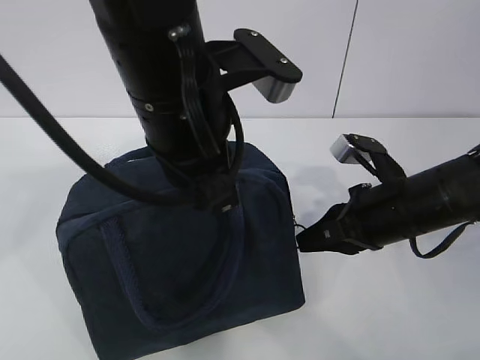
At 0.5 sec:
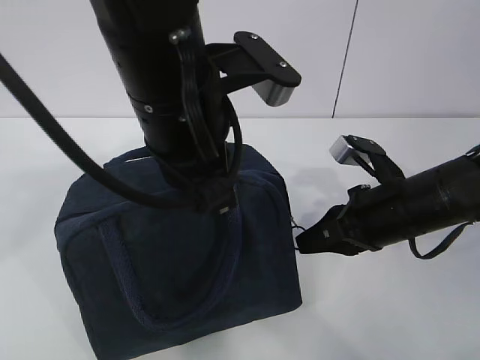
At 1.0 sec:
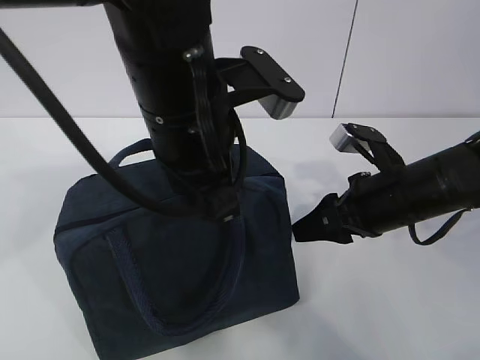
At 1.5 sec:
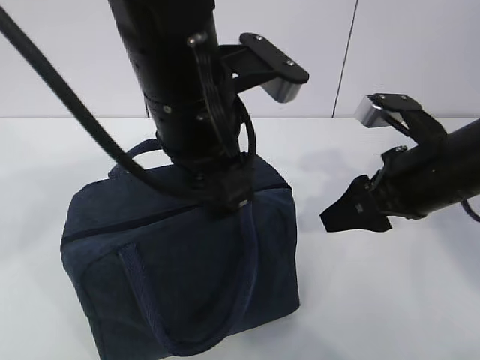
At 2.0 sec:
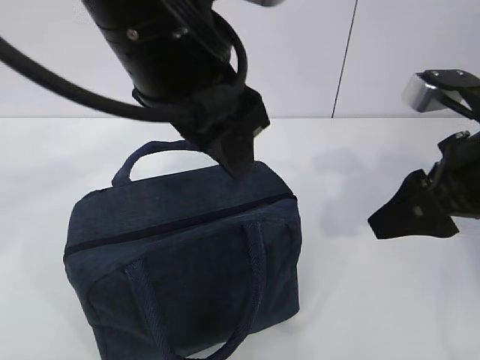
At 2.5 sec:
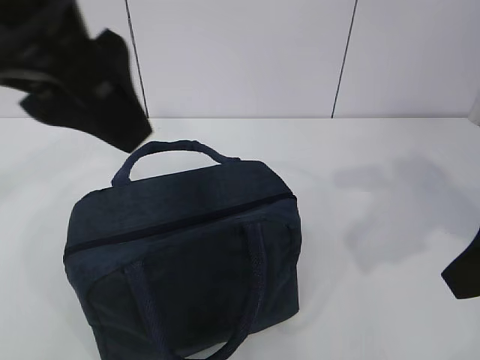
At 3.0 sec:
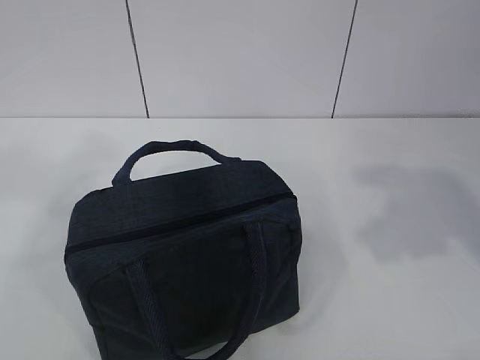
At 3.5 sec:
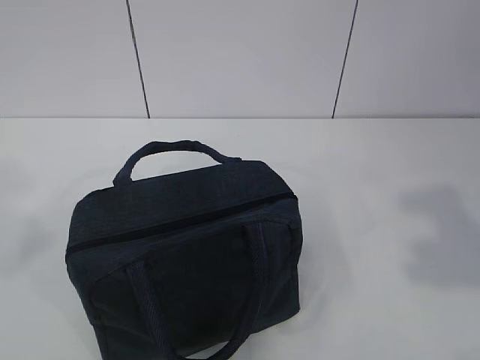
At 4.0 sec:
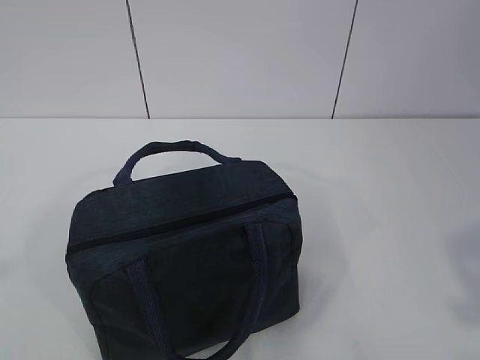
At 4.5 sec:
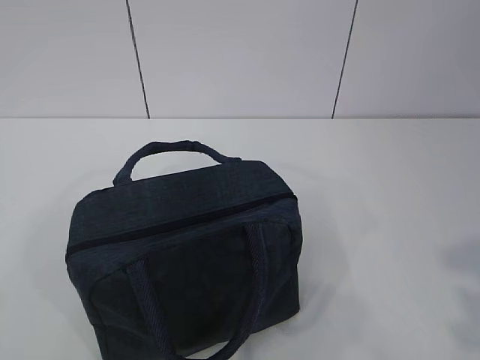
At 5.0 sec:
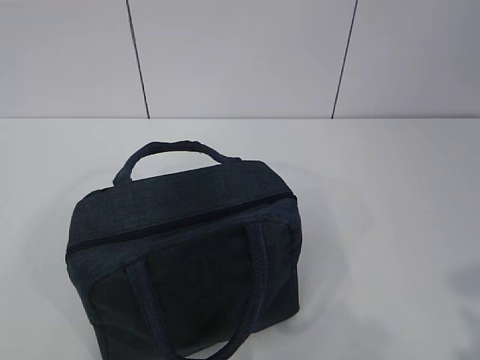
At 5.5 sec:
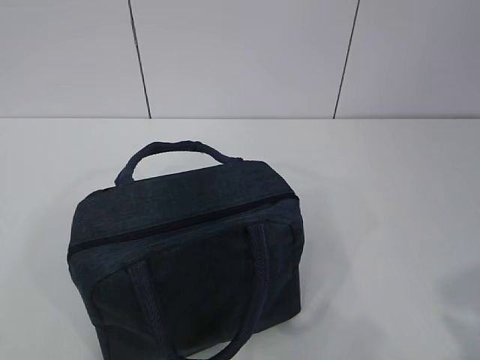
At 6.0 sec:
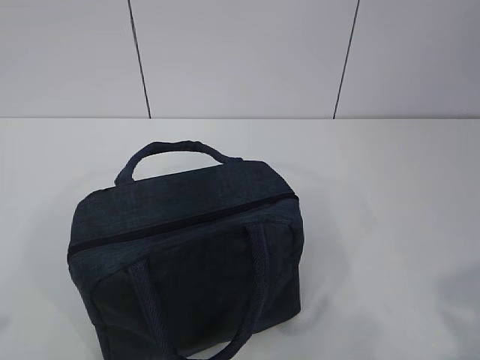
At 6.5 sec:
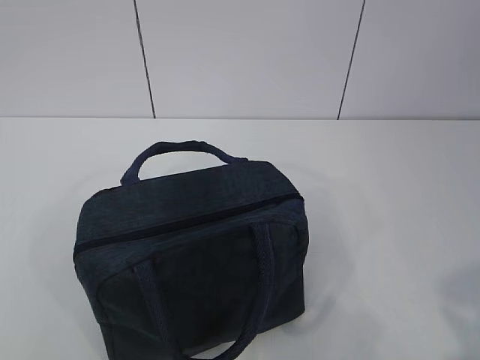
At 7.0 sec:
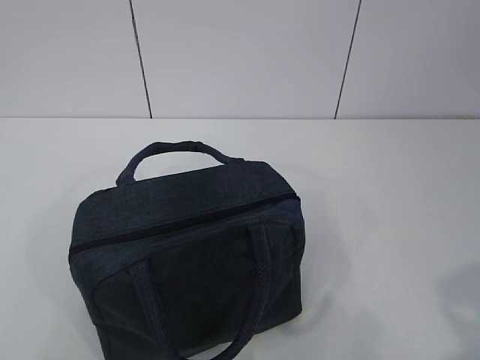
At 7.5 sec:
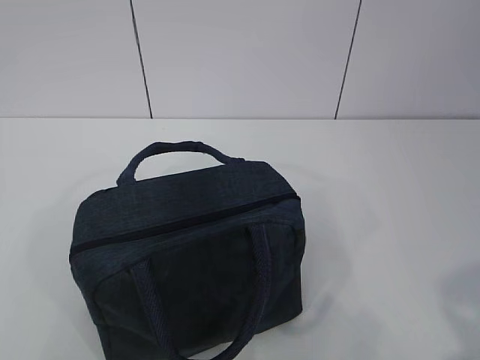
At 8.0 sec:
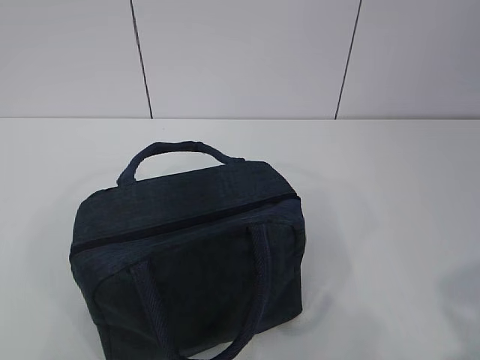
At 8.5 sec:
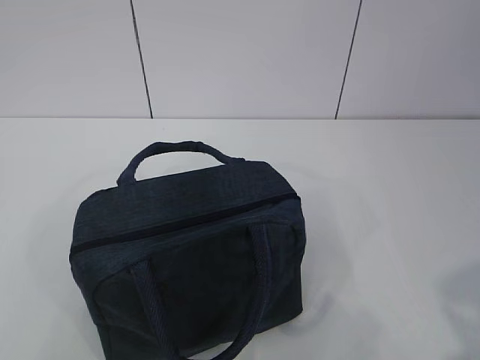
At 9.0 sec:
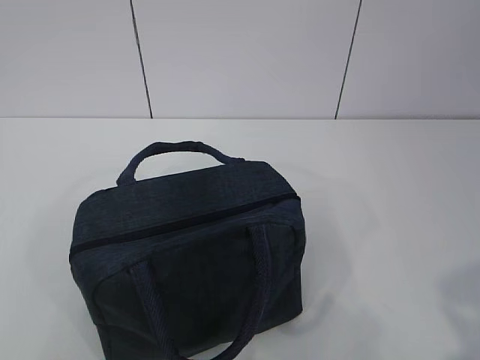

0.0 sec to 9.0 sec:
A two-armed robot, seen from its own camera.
0.0 sec to 2.0 sec: The left gripper goes roughly 5 cm upward, and opens its fingers; the right gripper travels upward and backward by about 15 cm, and opens.
2.0 sec to 4.5 sec: The left gripper goes some 35 cm to the left and backward, while the right gripper heads backward, covering about 25 cm.
4.5 sec to 7.0 sec: The left gripper goes some 5 cm downward; the right gripper shifts by roughly 5 cm.
7.0 sec to 9.0 sec: Both grippers stay put.

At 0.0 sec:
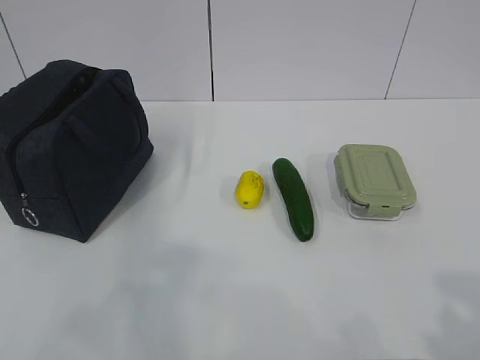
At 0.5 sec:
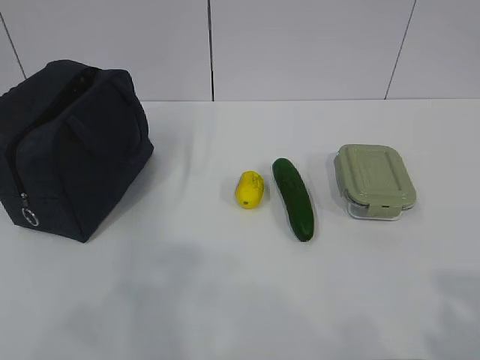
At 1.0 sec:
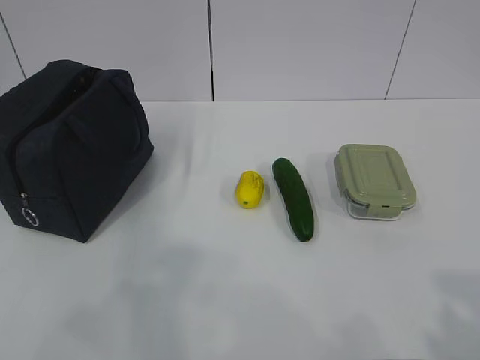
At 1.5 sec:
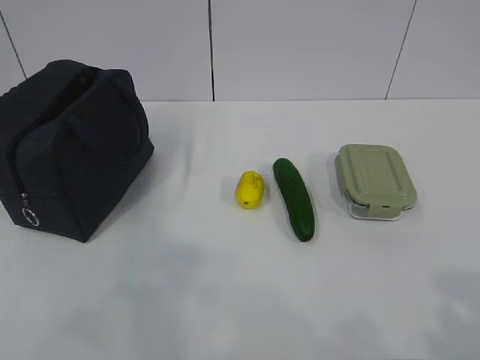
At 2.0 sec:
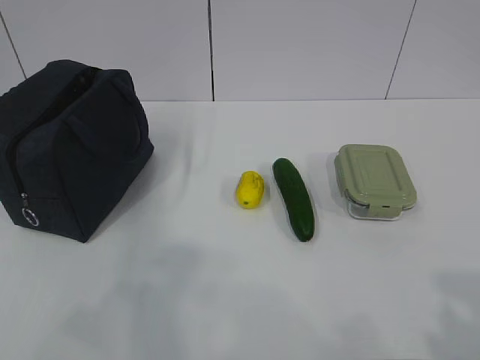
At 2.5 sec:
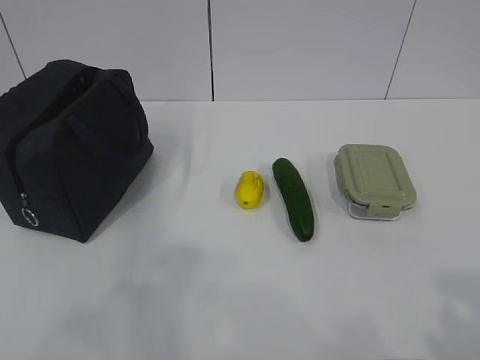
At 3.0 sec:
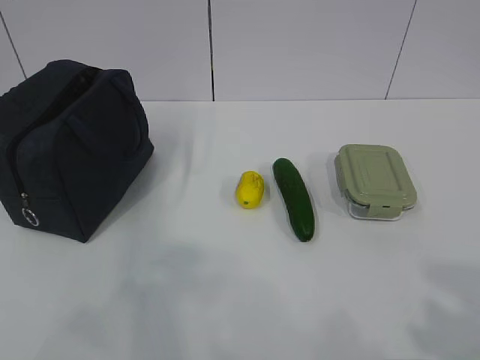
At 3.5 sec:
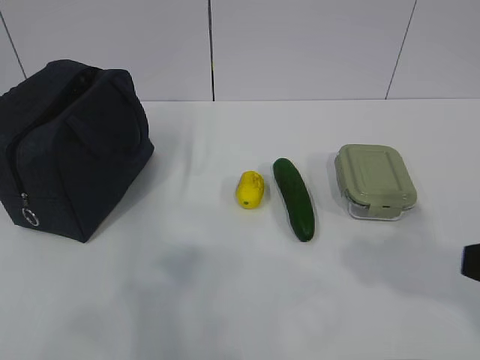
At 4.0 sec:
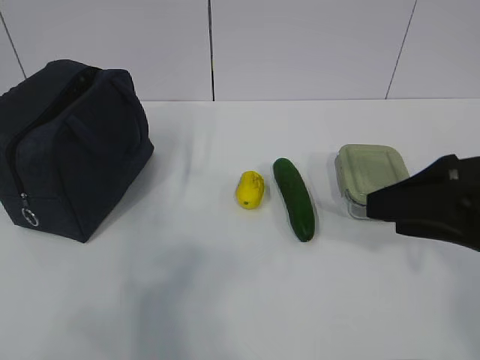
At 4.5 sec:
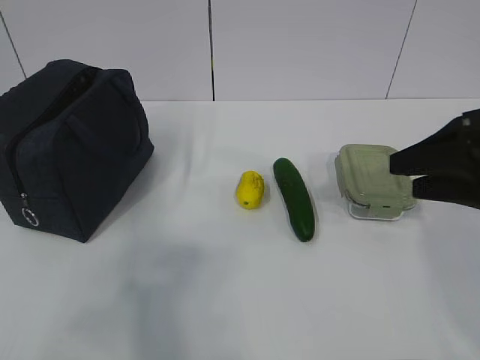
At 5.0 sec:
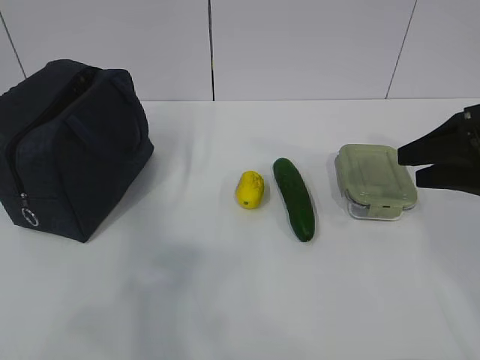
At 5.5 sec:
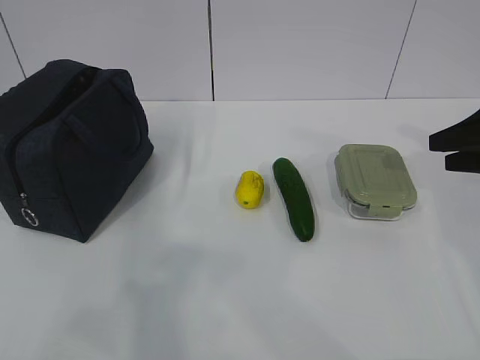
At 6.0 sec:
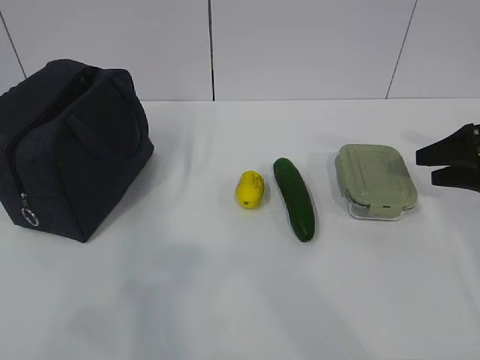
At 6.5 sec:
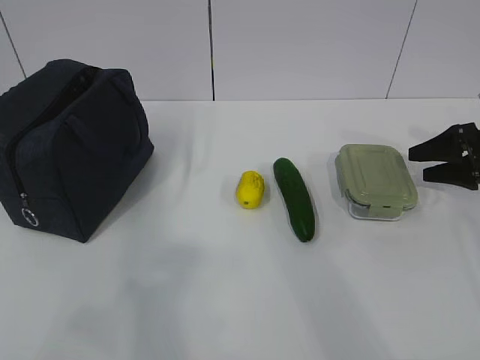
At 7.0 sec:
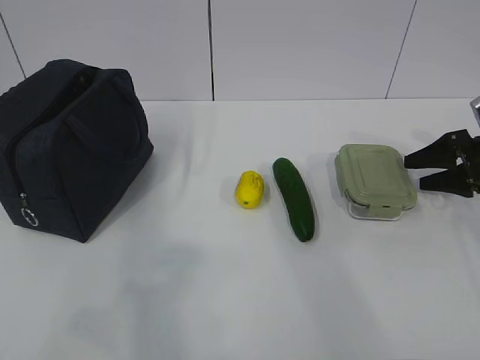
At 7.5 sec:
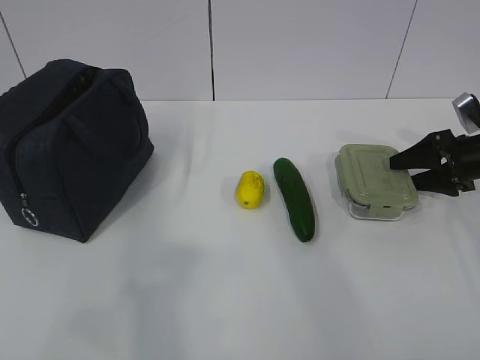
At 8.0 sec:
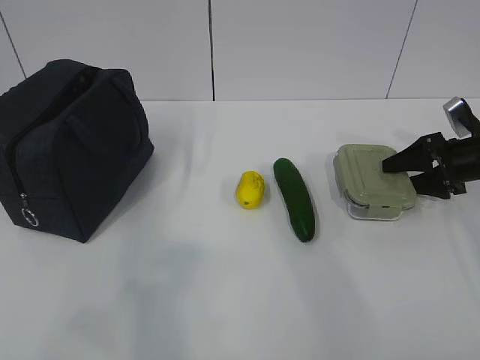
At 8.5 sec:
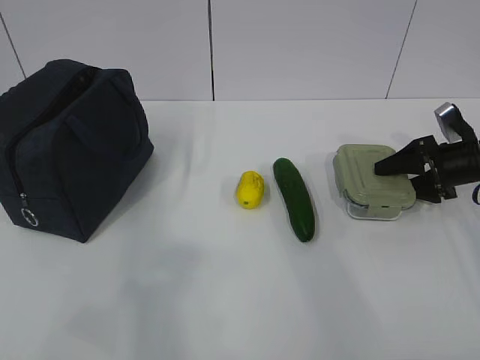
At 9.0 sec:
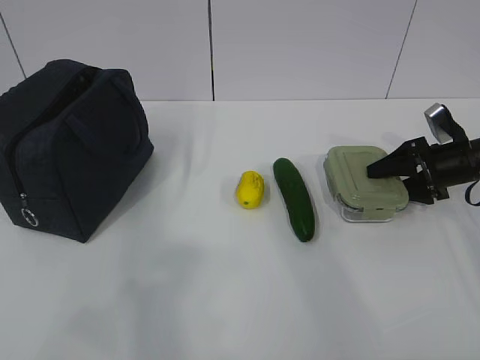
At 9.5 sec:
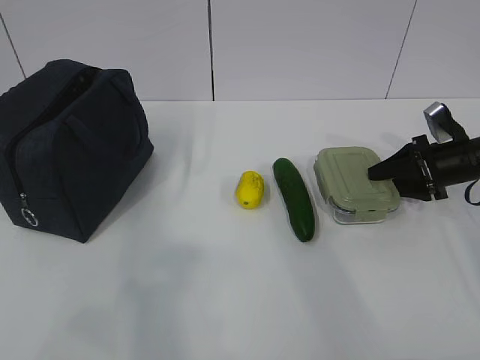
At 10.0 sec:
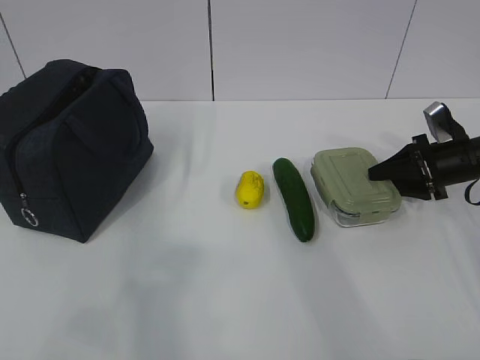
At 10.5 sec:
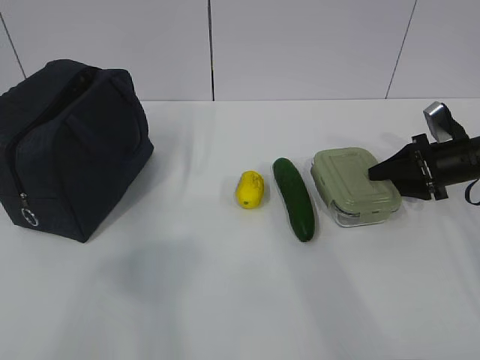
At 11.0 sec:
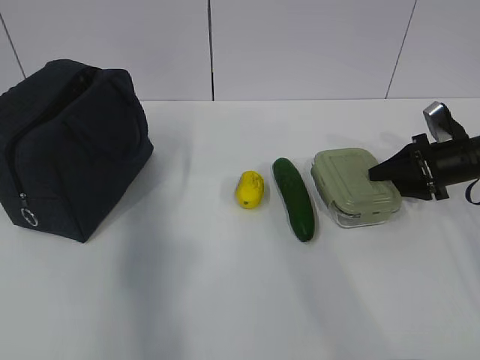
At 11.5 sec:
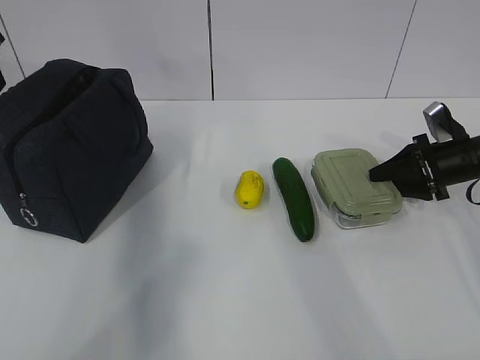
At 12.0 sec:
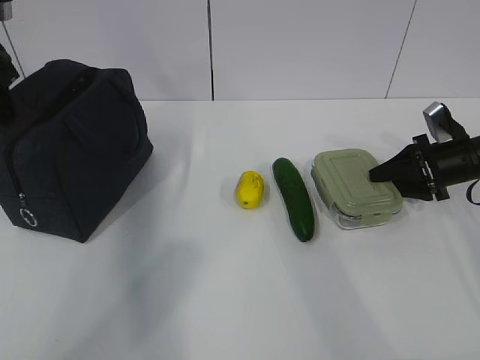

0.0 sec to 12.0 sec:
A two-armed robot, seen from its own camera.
Step, 0.0 sec to 11.5 sec: Grab the lunch box with your right hand.
2.0 sec to 4.0 sec: The right gripper goes some 20 cm forward.
4.0 sec to 6.0 sec: The right gripper is displaced forward, to the right and downward by roughly 25 cm.
6.0 sec to 8.0 sec: The right gripper moves forward and downward, approximately 10 cm.
8.0 sec to 10.0 sec: The right gripper closes its fingers.
10.0 sec to 12.0 sec: The left gripper travels forward by about 40 cm.

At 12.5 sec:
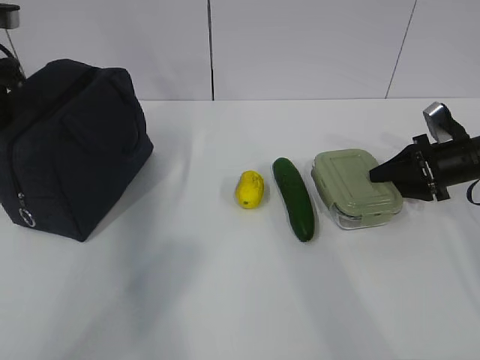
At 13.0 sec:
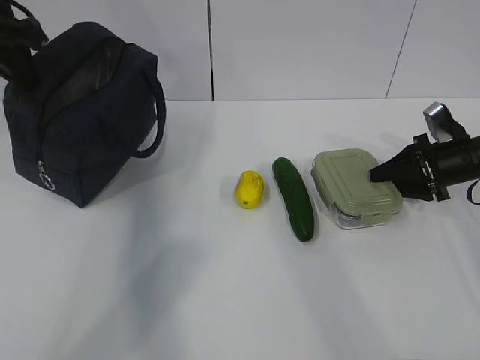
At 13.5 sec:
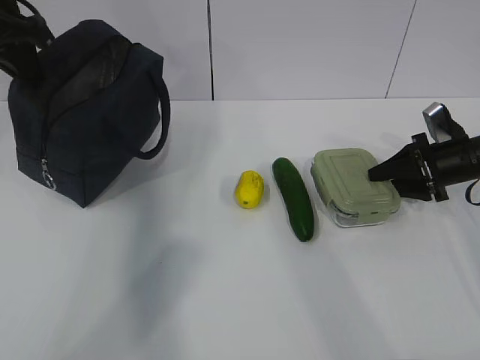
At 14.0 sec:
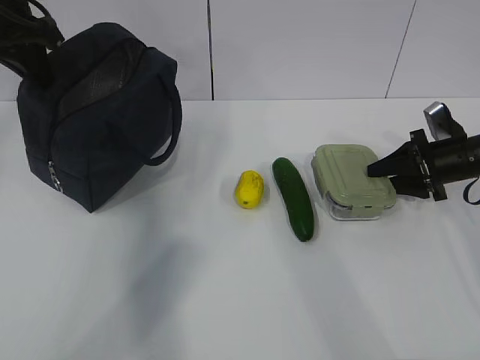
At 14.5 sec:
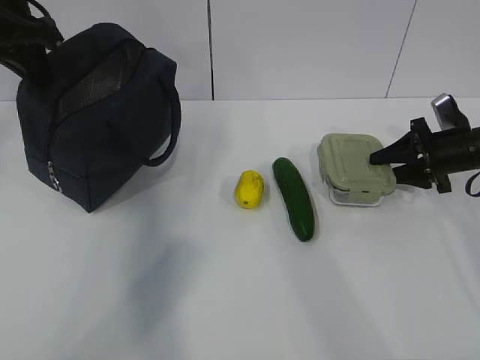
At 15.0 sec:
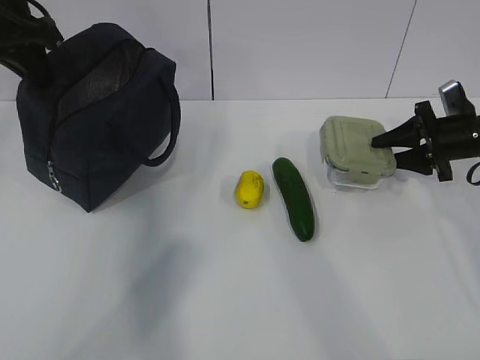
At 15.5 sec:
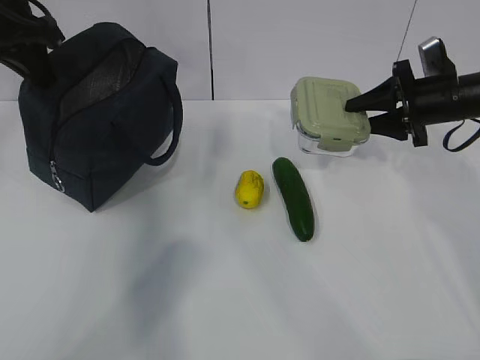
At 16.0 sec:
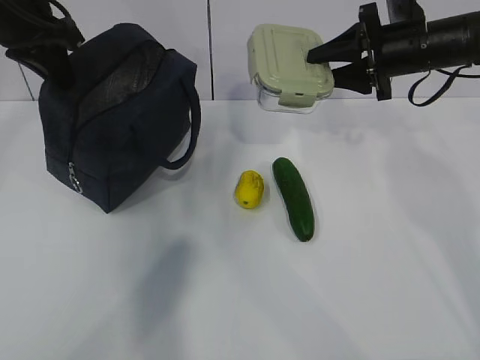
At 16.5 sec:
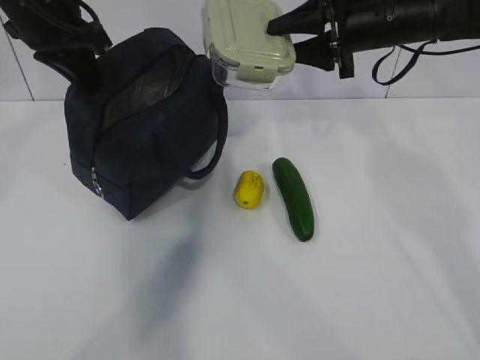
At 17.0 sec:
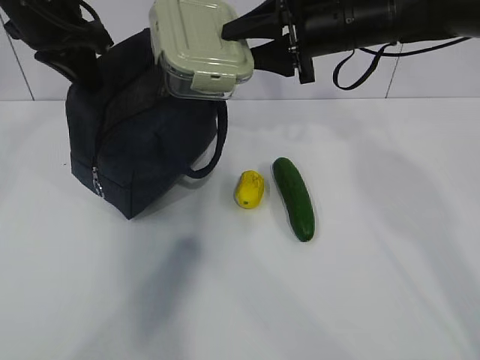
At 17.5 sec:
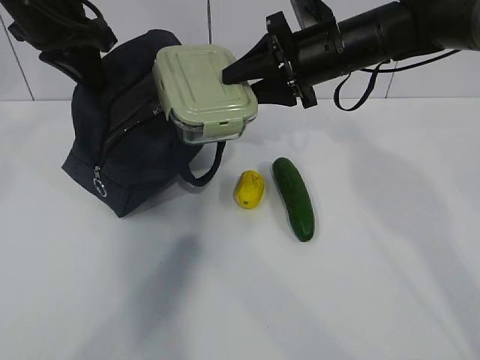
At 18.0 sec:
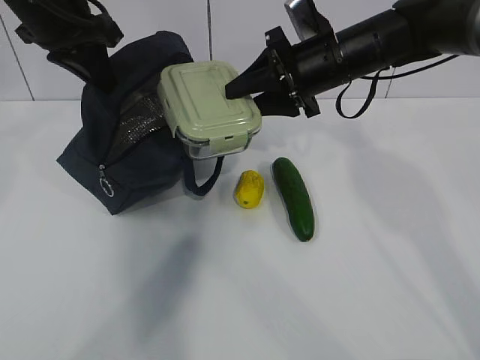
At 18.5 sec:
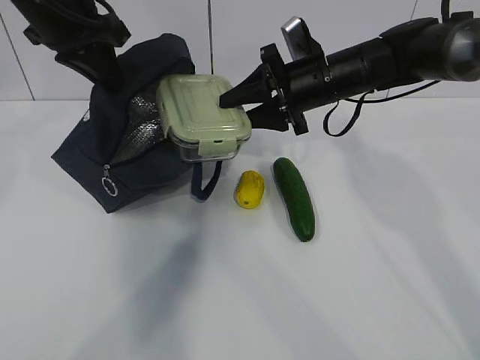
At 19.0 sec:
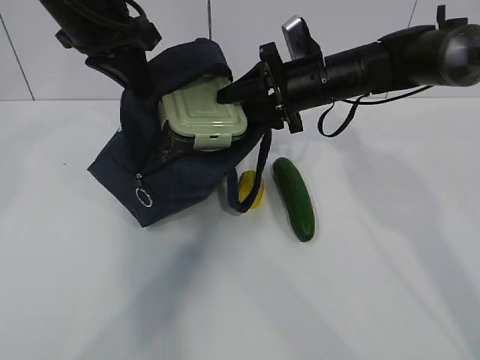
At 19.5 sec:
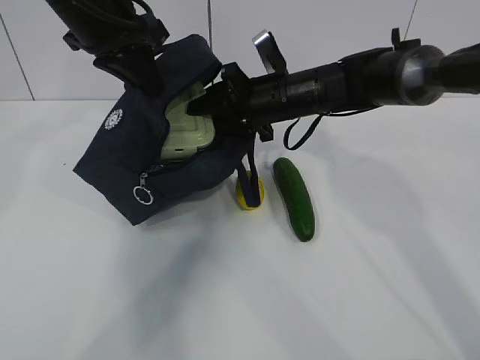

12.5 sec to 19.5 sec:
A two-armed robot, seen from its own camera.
Step, 12.5 sec to 14.0 sec: Grab the lunch bag with your left hand.
Step, 14.5 sec to 17.5 sec: Place it into the bag with your right hand.
12.5 sec to 14.5 sec: The left gripper ends up approximately 5 cm from where it was.
14.5 sec to 16.0 sec: The right gripper travels upward and to the left by some 20 cm.
16.0 sec to 17.5 sec: The right gripper heads to the left, covering some 10 cm.
17.5 sec to 19.5 sec: The right gripper heads downward and to the left, covering roughly 10 cm; the left gripper moves to the right, some 5 cm.
